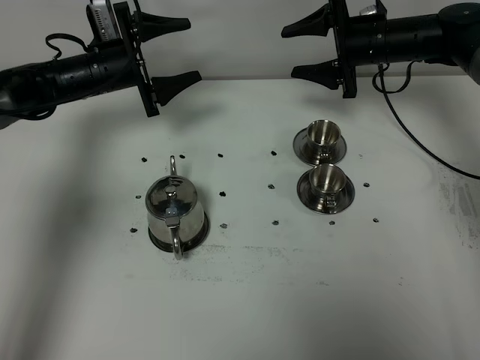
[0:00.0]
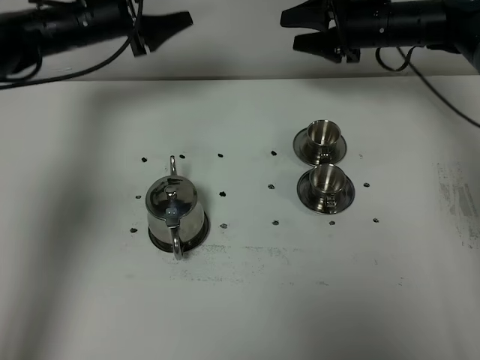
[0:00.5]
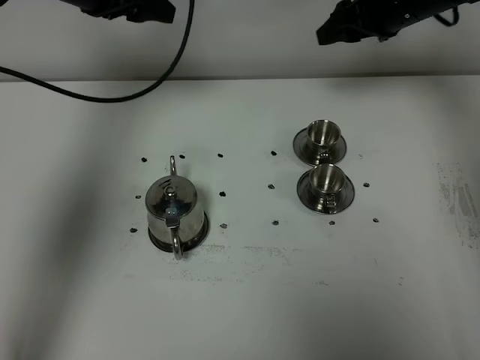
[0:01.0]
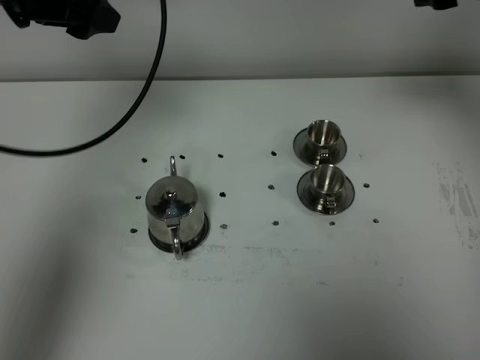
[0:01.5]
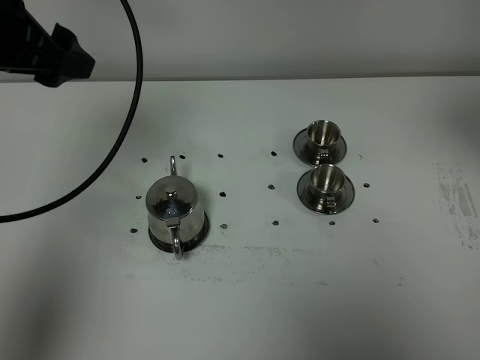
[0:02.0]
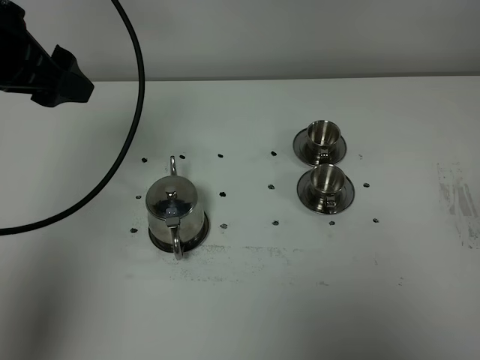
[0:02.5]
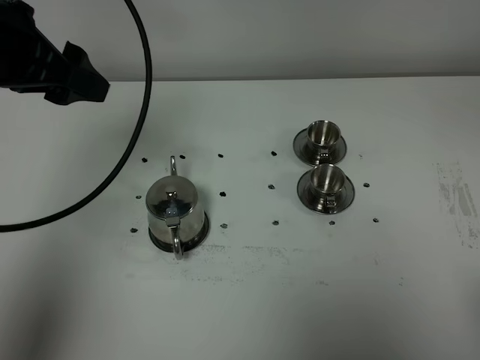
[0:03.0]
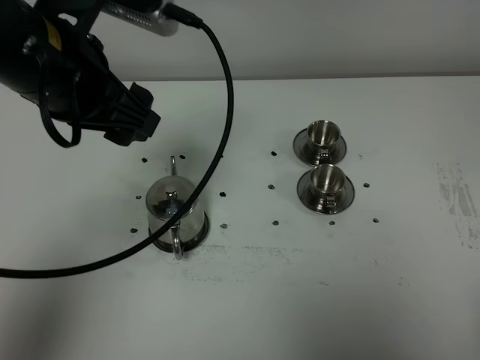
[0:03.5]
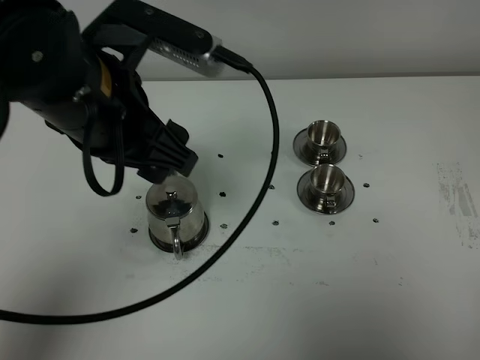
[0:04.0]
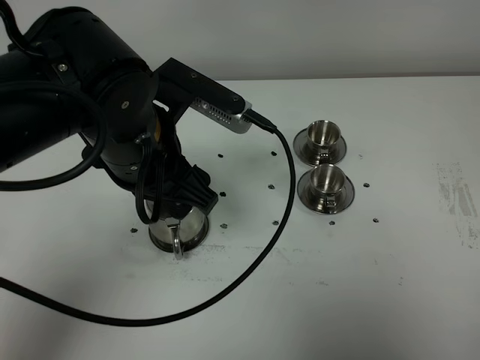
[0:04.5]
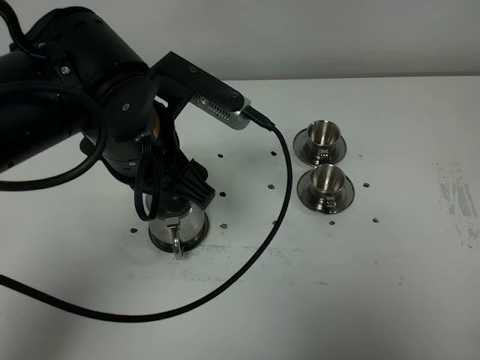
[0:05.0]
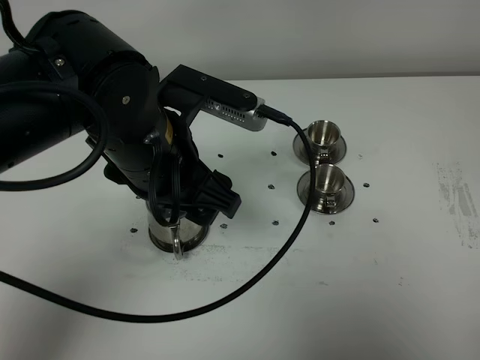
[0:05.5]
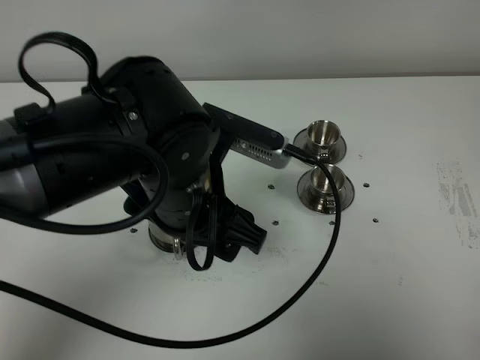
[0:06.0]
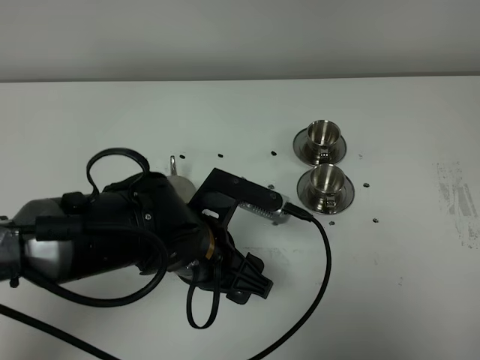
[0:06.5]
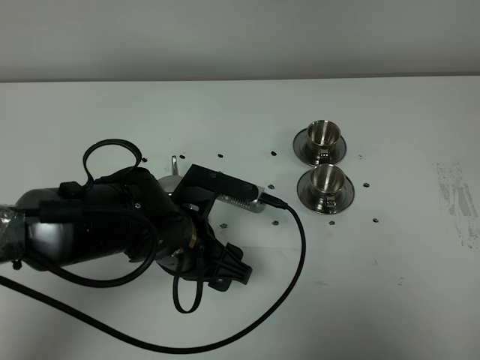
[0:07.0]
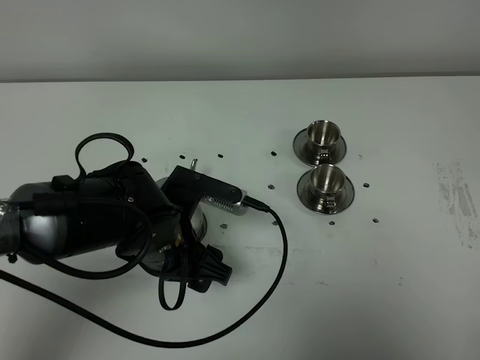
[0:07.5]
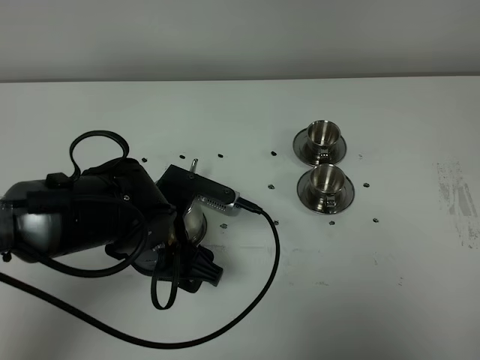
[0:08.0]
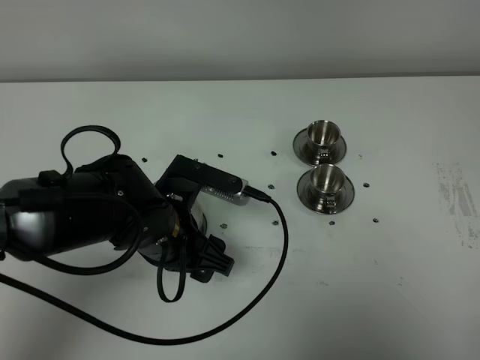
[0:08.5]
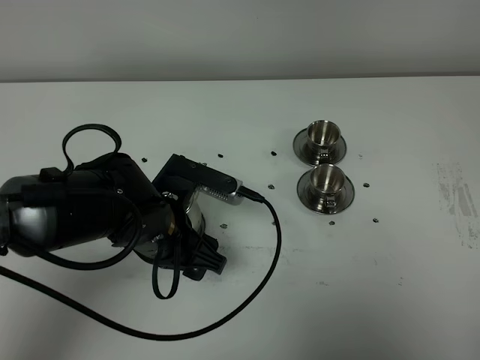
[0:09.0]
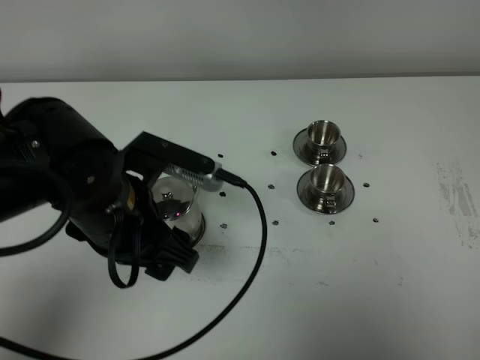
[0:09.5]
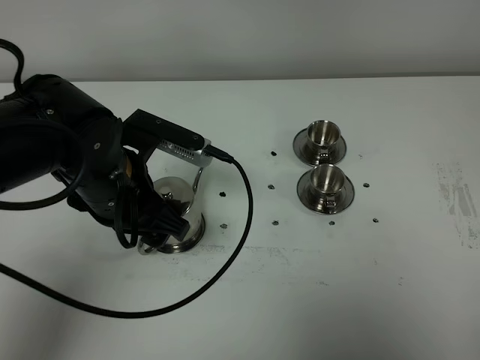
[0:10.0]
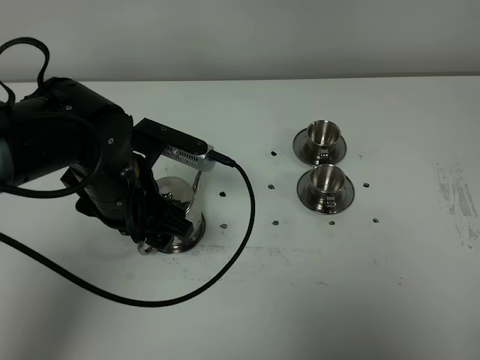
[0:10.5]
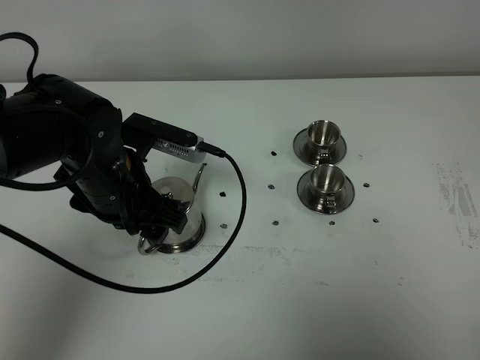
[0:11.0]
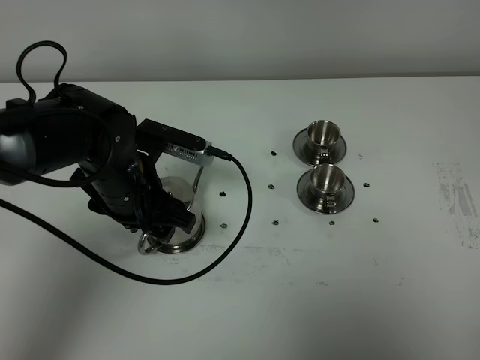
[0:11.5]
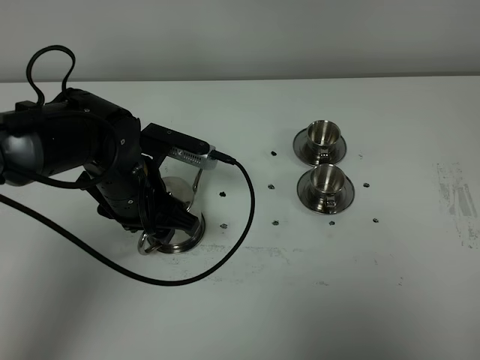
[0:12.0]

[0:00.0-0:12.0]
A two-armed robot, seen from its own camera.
Task of the whole recording: grasp the stainless steel teapot and pour the tea into the two stainless steel teacups one by one, put the stainless steel teapot back in its original place.
0:00.0 to 0:02.0: The left gripper goes roughly 25 cm upward and backward; the right gripper moves backward and upward, approximately 40 cm.
0:02.0 to 0:04.0: The left gripper is displaced to the right and backward by approximately 15 cm, while the right gripper travels backward and downward by about 30 cm.
0:04.0 to 0:06.0: The left gripper travels downward and to the right by about 10 cm. Meanwhile the right gripper closes.
0:06.0 to 0:08.0: The left gripper goes roughly 10 cm downward.
0:08.0 to 0:10.0: The left gripper heads upward, covering approximately 5 cm.
0:10.0 to 0:12.0: The left gripper moves roughly 5 cm, and closes.

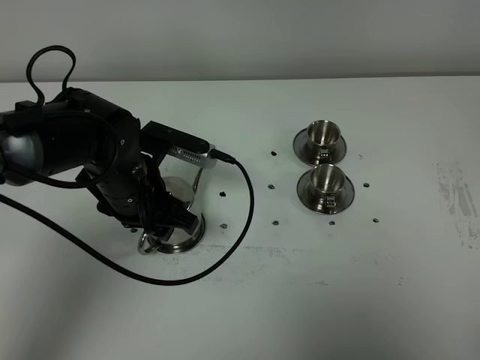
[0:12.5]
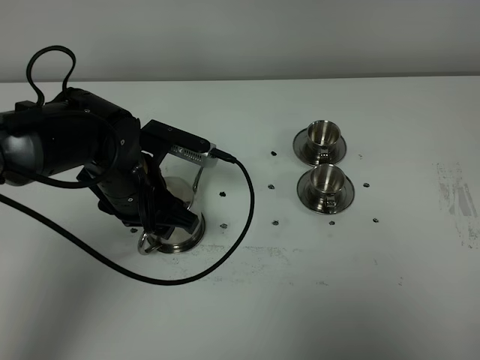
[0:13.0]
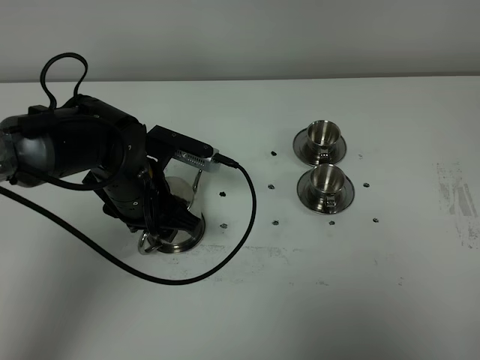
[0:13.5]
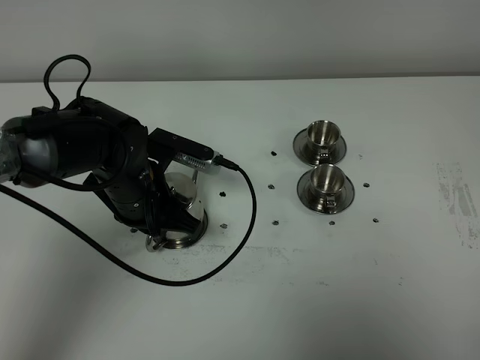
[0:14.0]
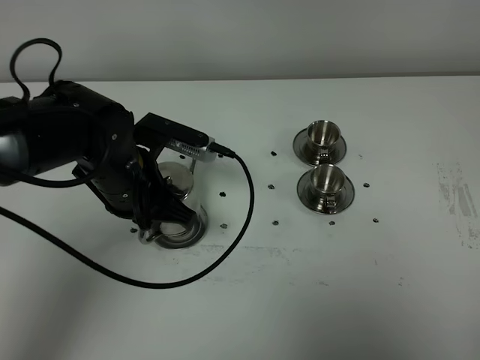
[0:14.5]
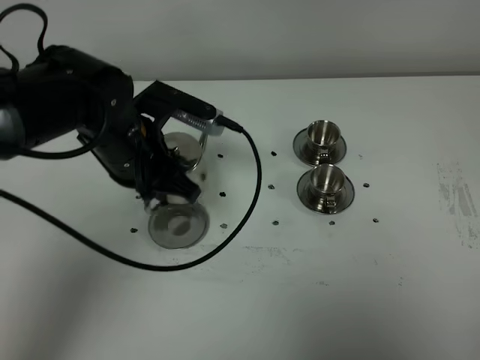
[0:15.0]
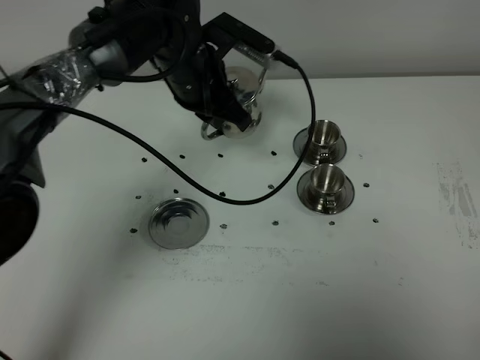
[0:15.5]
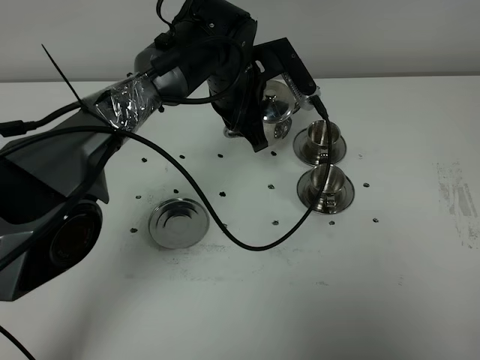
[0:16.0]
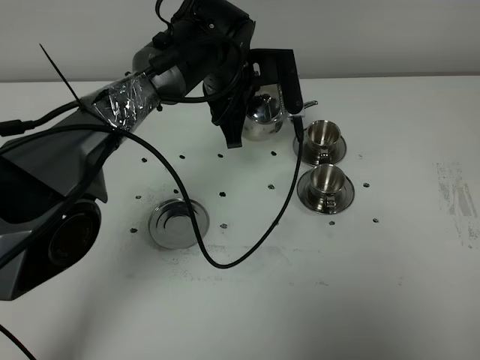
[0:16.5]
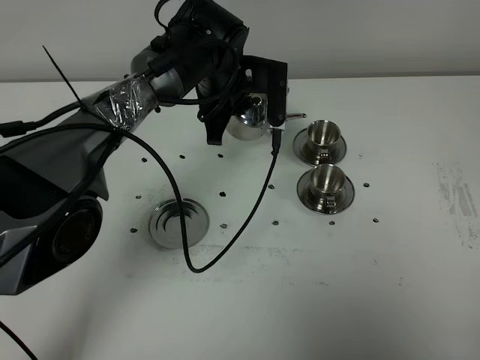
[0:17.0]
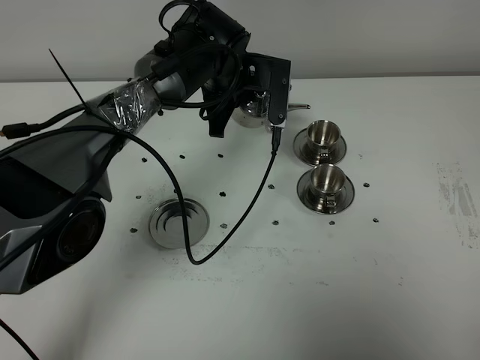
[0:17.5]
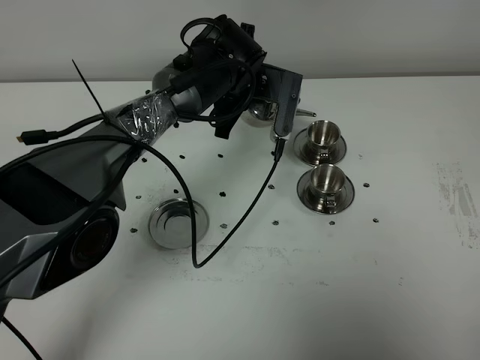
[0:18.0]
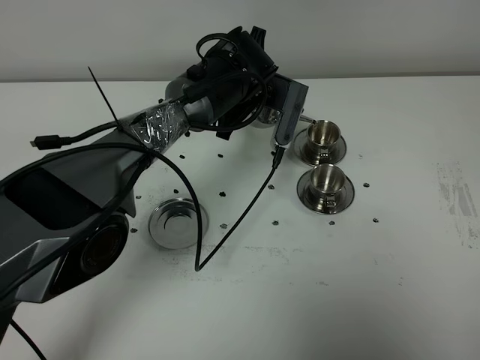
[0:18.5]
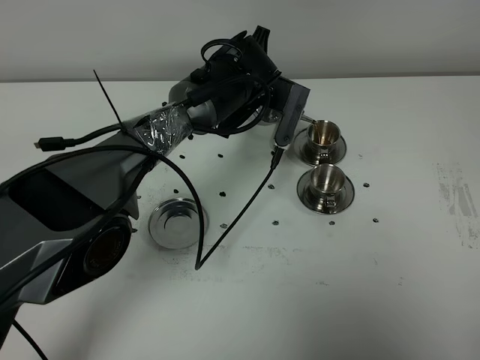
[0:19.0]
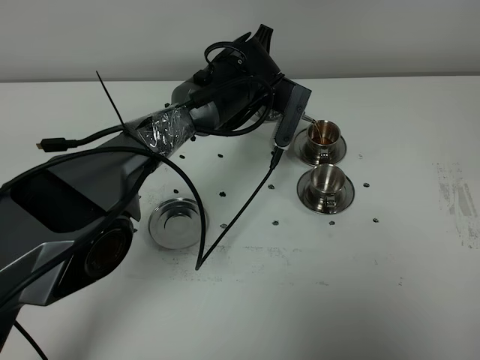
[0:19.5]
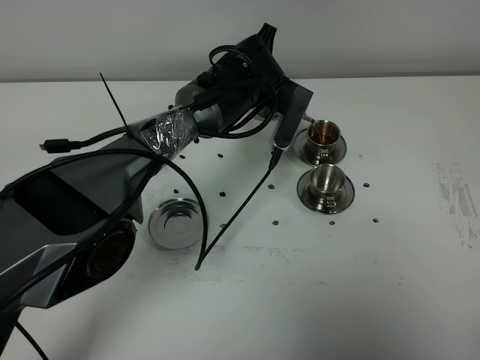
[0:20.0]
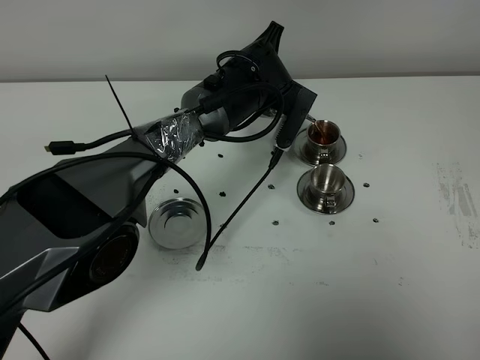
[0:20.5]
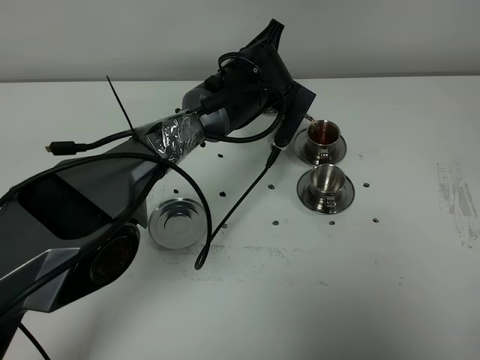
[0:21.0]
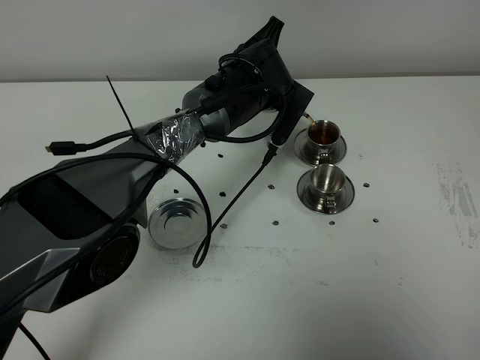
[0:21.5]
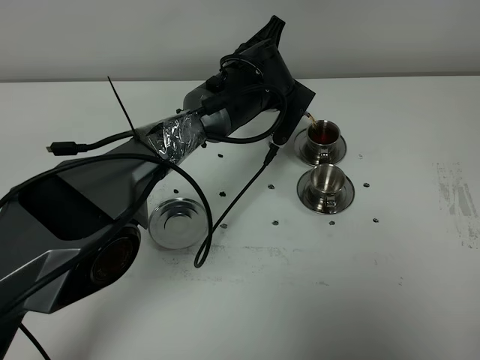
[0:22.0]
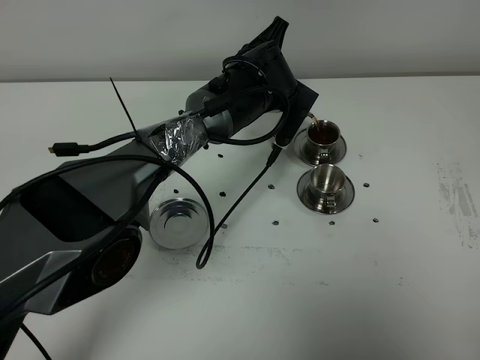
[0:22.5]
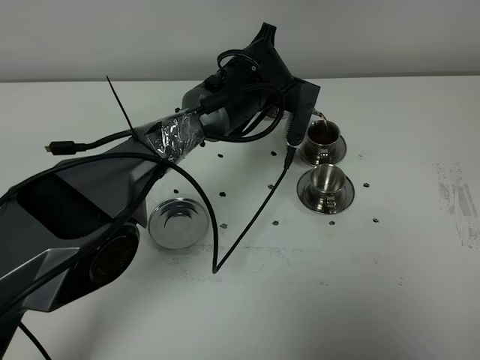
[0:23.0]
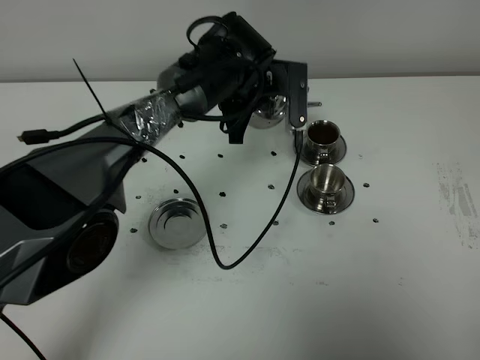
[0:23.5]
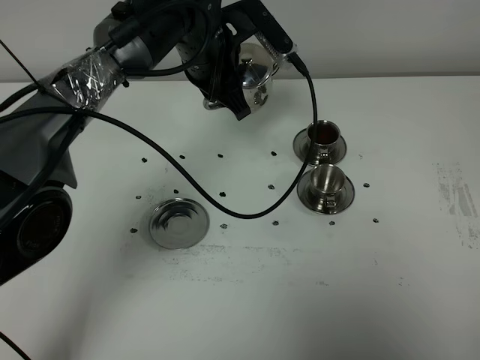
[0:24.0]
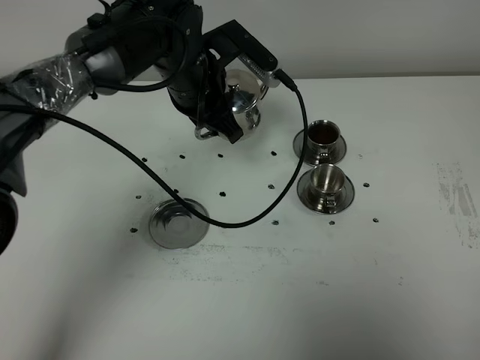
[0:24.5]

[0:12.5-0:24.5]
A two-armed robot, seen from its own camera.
Task of the whole recording: grasp the stainless steel teapot and pour the tea into the two stainless steel teacups one by one, put the stainless steel teapot back in its original place.
Step, 0:12.5 to 0:14.5: Pick up the teapot with the left gripper.
0:12.5 to 0:14.5: The left gripper closes up.
0:14.5 to 0:16.5: The left gripper heads forward and to the right, covering approximately 20 cm.
0:18.5 to 0:20.5: The grippers move only a little.
0:20.5 to 0:22.5: Both grippers stay about where they are.
0:22.5 to 0:24.5: The left gripper shifts about 10 cm to the left.

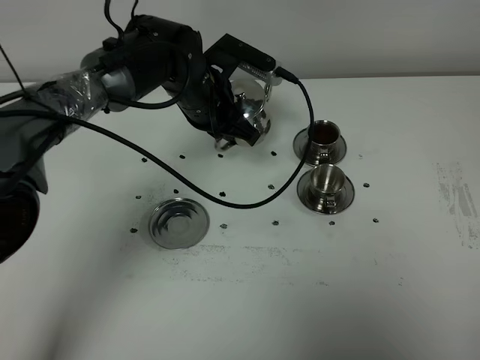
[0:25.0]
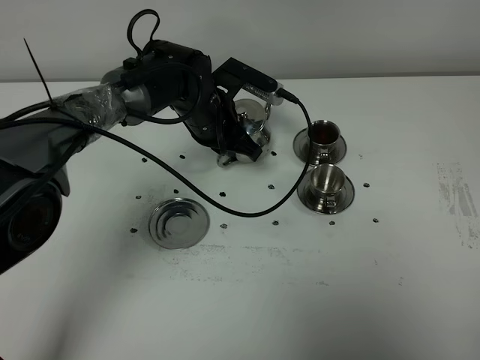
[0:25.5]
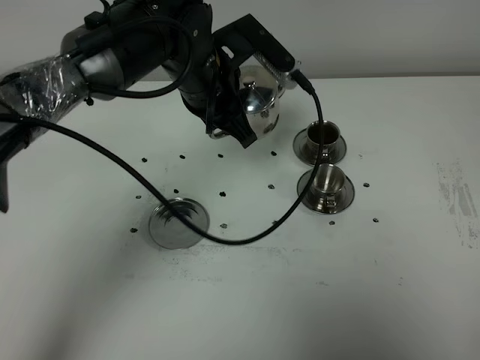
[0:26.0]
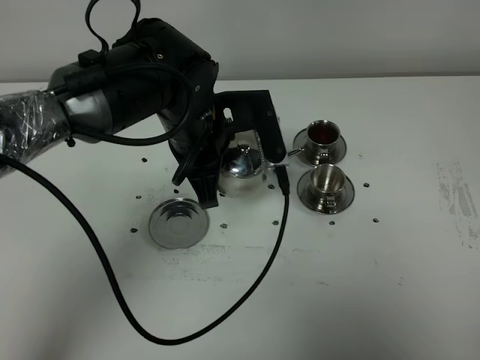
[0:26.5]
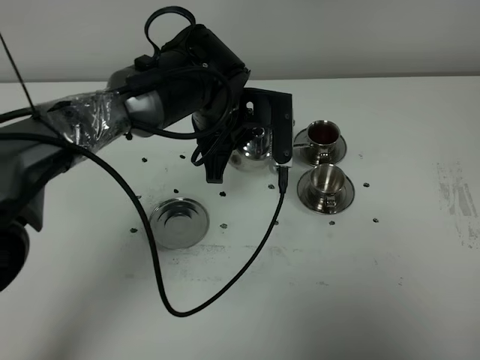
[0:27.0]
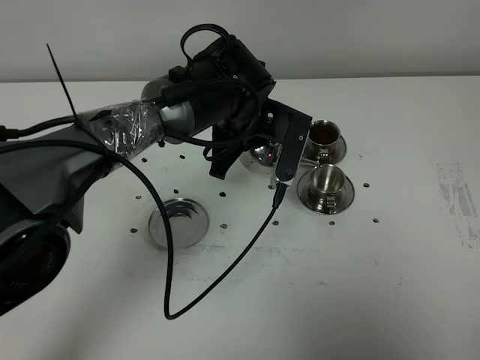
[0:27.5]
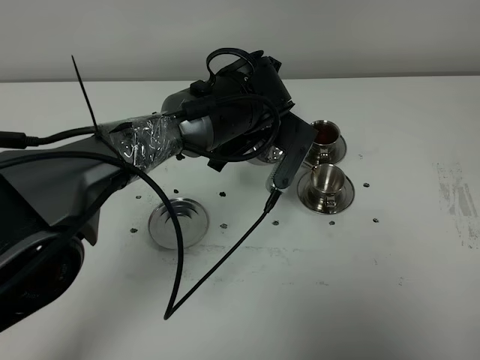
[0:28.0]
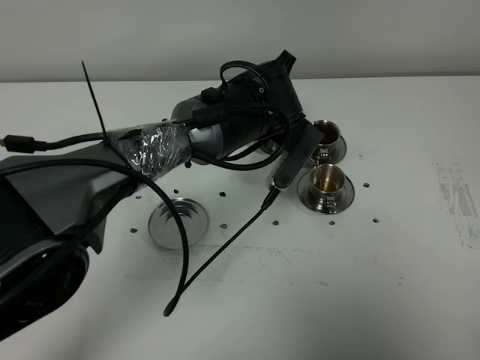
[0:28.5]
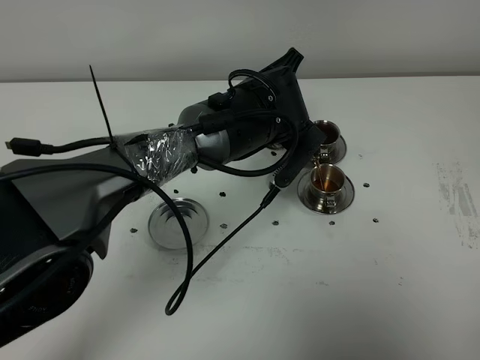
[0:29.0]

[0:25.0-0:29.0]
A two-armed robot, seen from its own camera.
Task of the whole recording: grasp the stainless steel teapot and pour the tea into the two stainless steel teacups one by one, put the stainless steel teapot back in its original place.
0:25.0 to 0:27.0: The left gripper is displaced backward by approximately 5 cm.
0:27.0 to 0:29.0: The left gripper shifts approximately 5 cm to the right.
